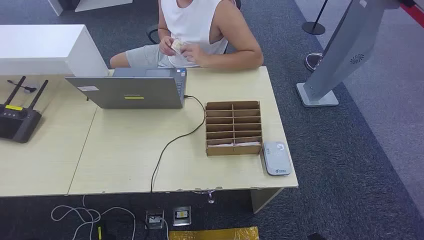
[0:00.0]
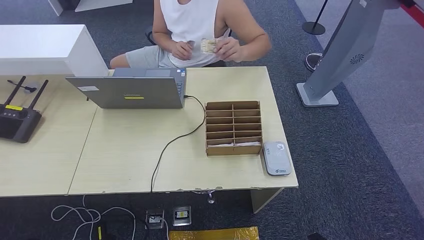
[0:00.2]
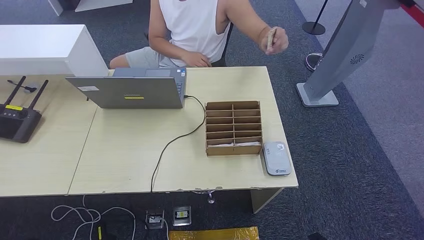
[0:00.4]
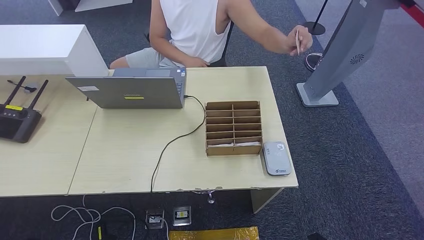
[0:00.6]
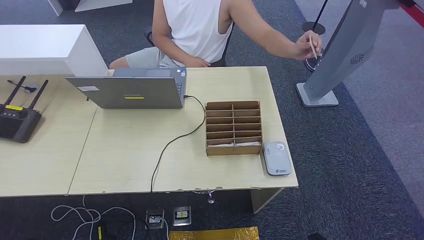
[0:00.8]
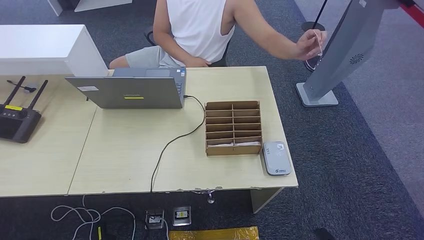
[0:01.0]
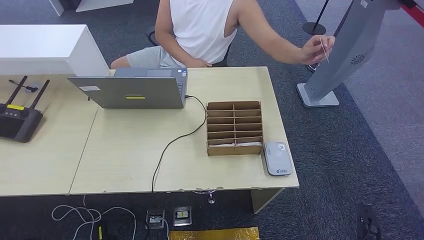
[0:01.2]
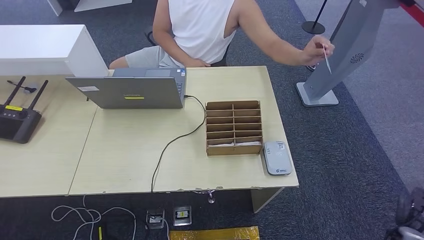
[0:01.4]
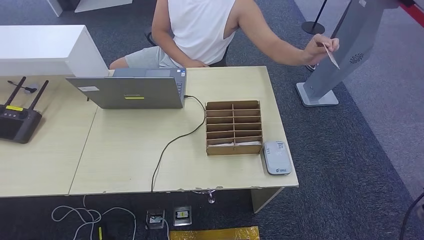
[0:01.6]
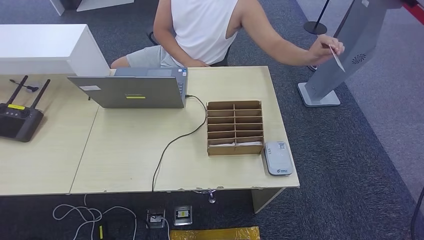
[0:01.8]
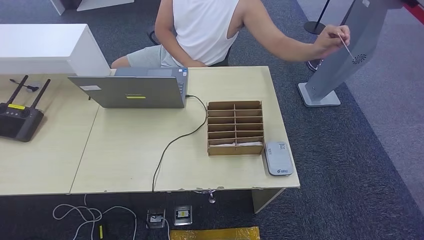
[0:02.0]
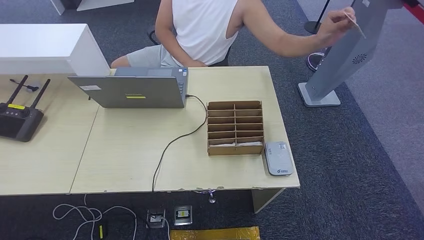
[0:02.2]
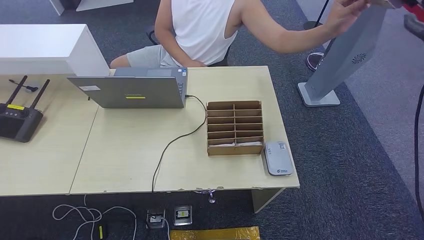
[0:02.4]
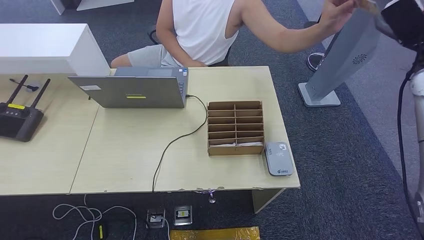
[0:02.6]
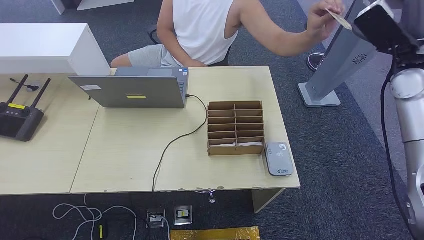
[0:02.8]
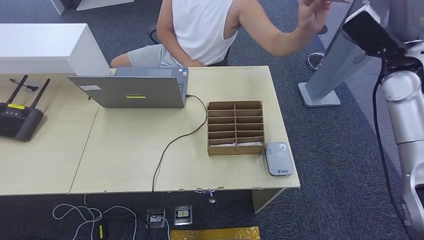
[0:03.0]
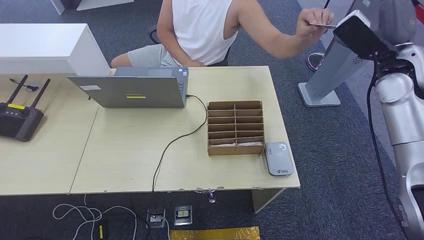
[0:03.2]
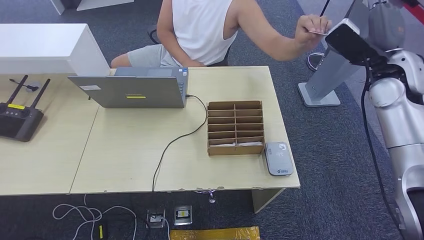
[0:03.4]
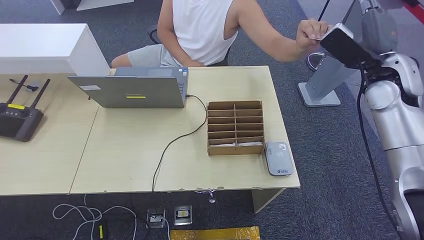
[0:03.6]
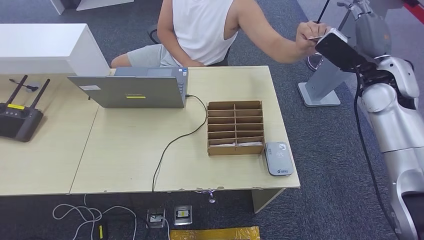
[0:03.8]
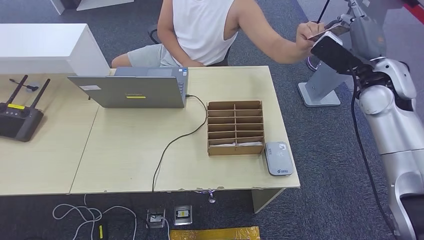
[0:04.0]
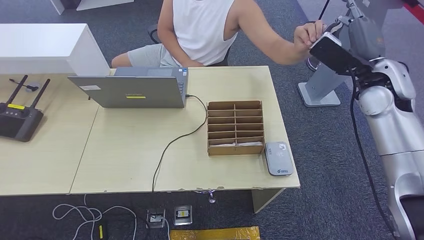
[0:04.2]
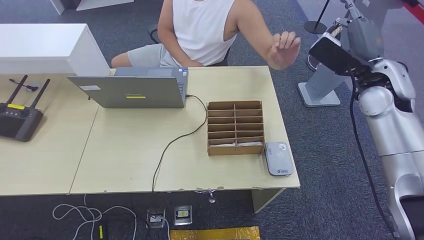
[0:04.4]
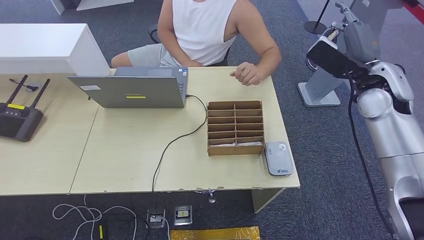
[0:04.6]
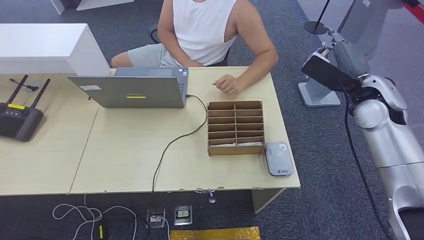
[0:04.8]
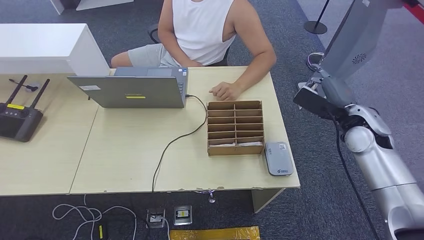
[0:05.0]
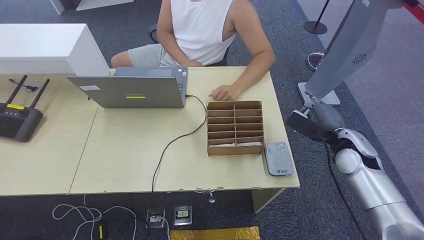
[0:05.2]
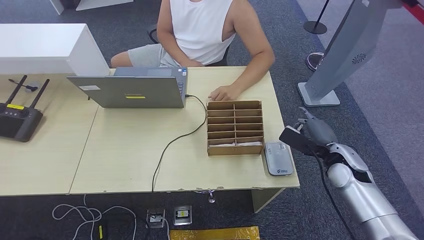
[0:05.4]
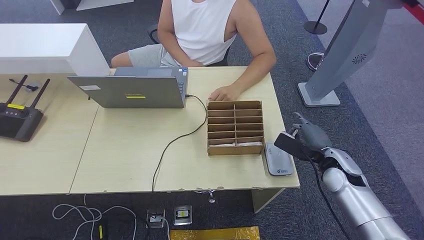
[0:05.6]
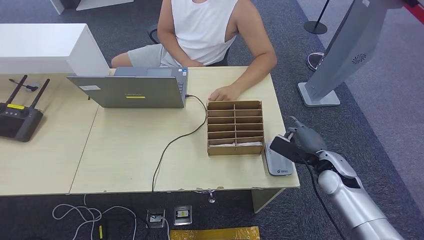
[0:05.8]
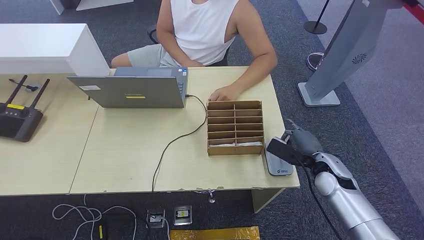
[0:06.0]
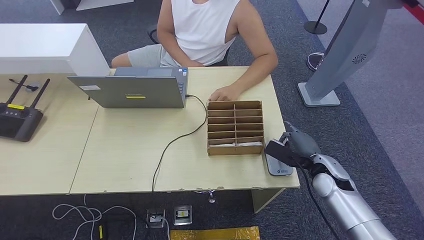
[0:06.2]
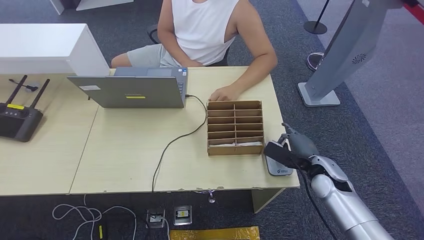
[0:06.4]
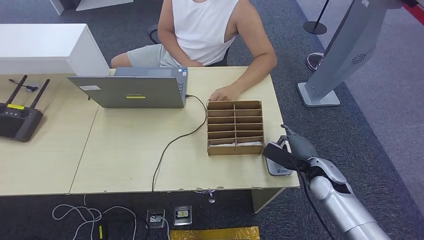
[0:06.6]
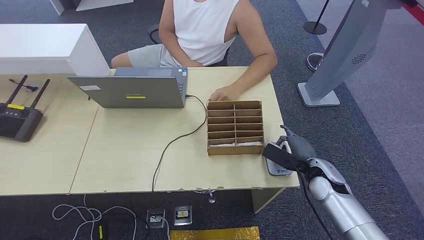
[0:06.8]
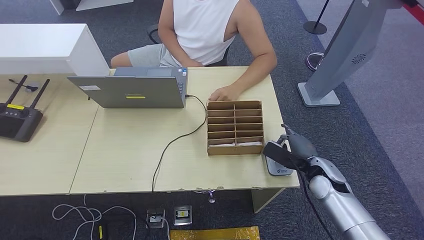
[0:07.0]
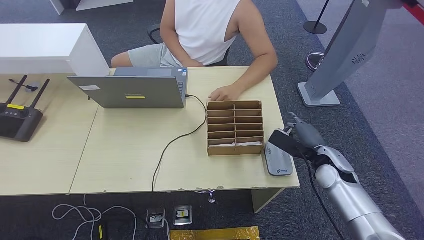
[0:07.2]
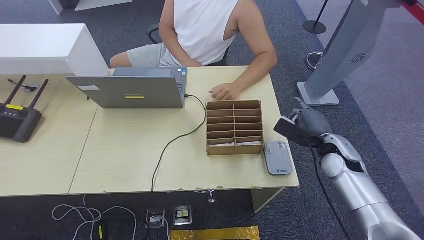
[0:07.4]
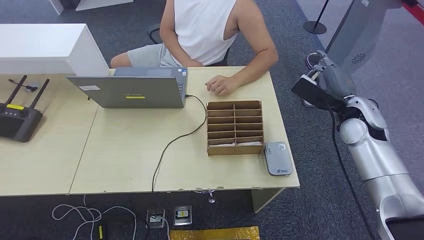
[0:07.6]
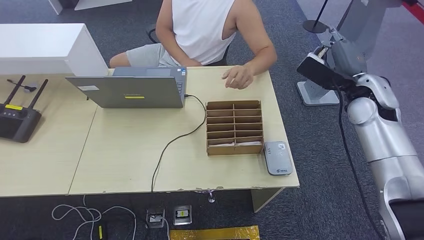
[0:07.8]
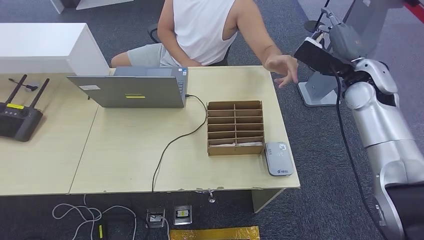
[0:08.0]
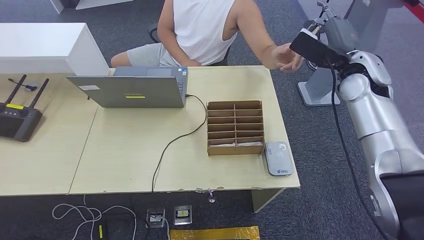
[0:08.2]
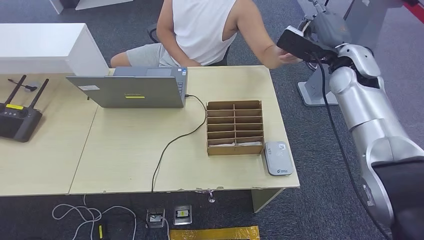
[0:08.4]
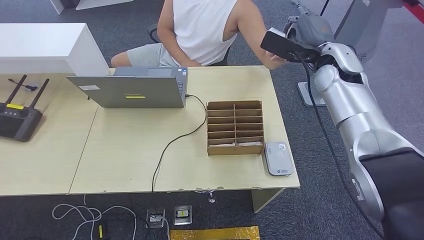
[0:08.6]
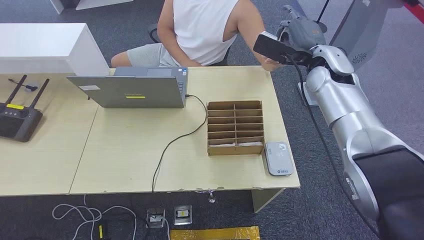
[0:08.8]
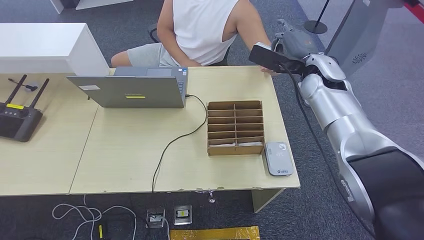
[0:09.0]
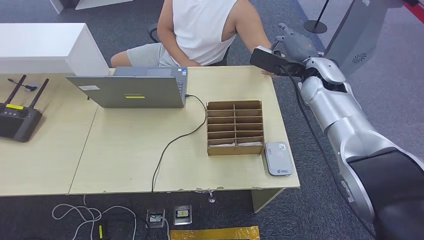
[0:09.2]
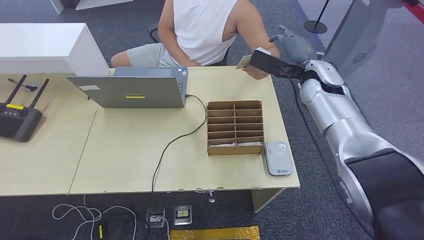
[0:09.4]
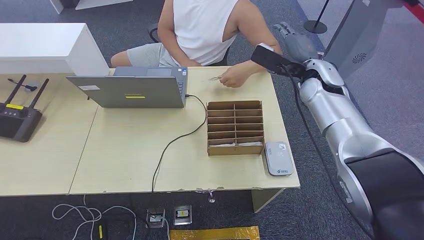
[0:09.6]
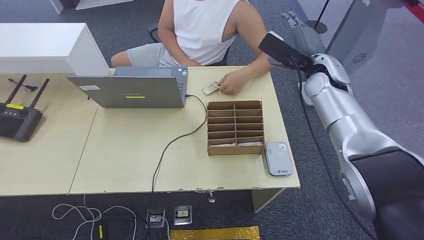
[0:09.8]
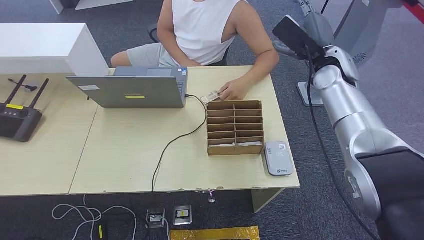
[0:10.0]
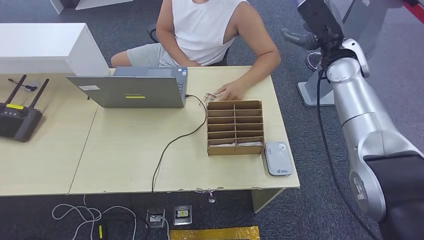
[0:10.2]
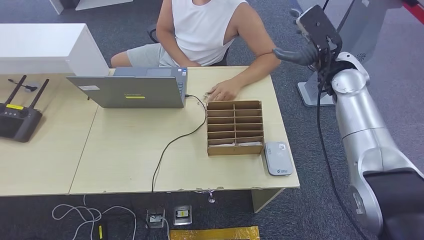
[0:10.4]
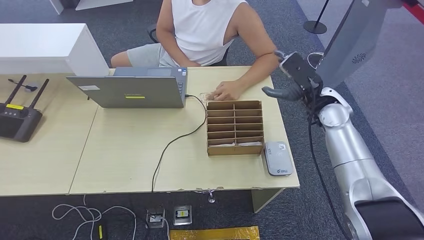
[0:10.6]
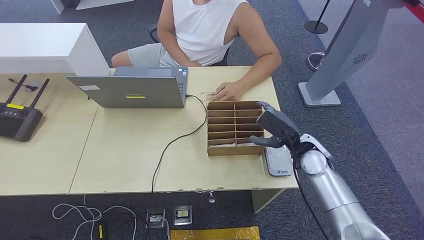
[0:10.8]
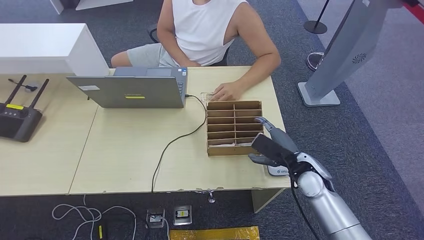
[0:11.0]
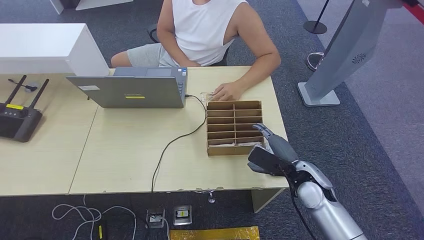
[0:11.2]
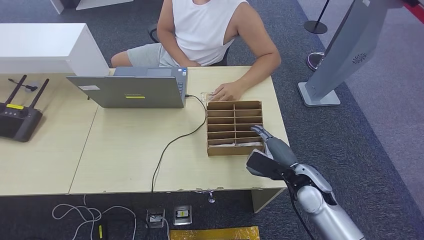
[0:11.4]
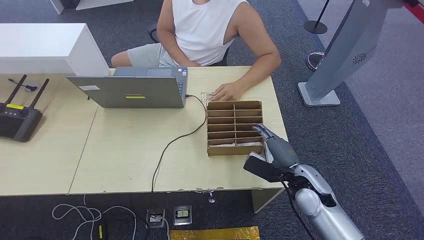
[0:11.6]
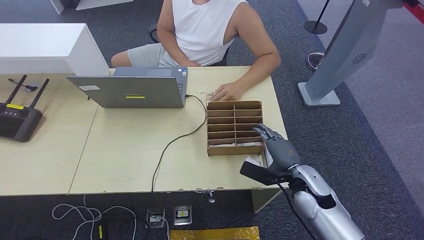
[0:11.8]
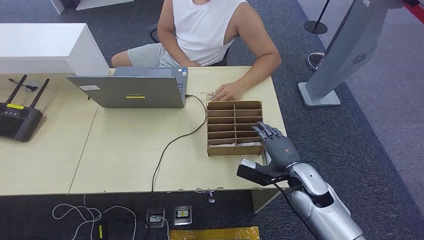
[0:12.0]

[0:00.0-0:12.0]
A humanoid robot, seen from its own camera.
Step, 0:00.0 to 0:04.6: Take the ID card from the person's hand.
Step, 0:04.8 to 0:06.8: Place the ID card on the card reader.
Step, 0:07.0 to 0:09.2: Hand the ID card to the person.
0:01.6 to 0:03.0: The right hand goes about 35 cm upward, to the left and forward.
0:03.0 to 0:04.4: The right hand shifts by about 5 cm.
0:04.4 to 0:06.0: The right hand moves downward, about 25 cm.
0:06.0 to 0:07.6: The right hand heads upward and forward, covering about 15 cm.
0:07.6 to 0:09.0: The right hand heads upward, to the left and forward, covering about 15 cm.
0:10.4 to 0:12.0: The right hand travels downward and backward by roughly 30 cm.

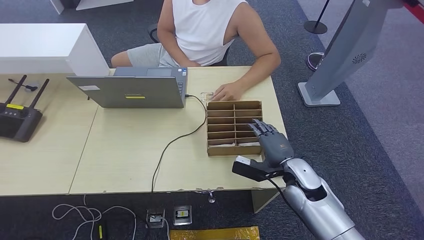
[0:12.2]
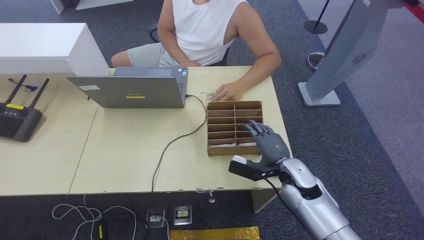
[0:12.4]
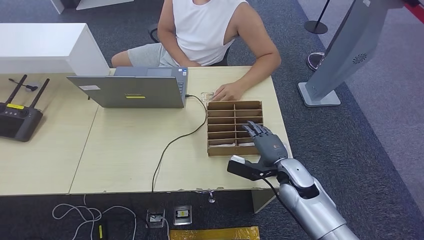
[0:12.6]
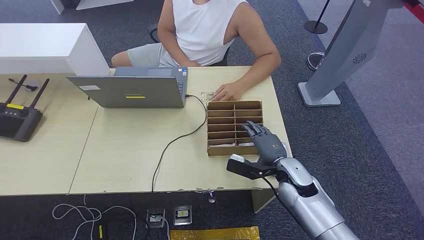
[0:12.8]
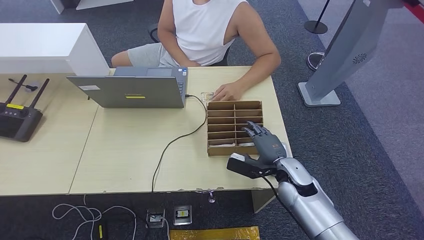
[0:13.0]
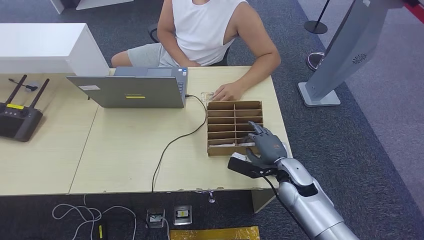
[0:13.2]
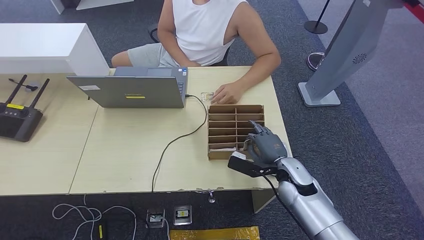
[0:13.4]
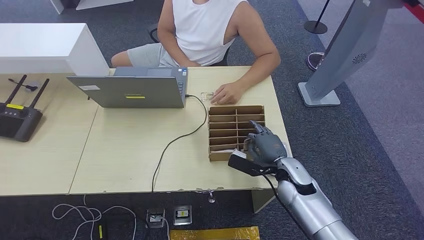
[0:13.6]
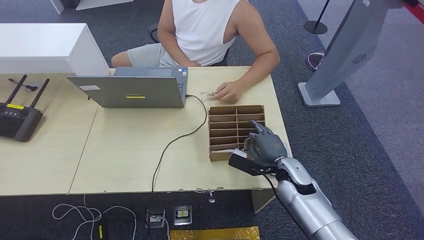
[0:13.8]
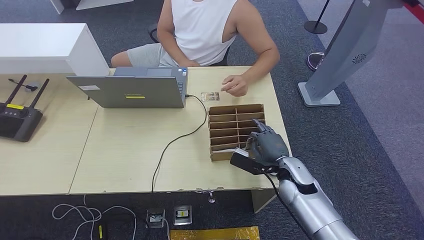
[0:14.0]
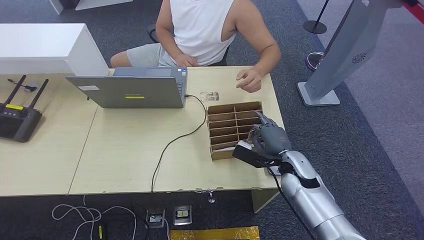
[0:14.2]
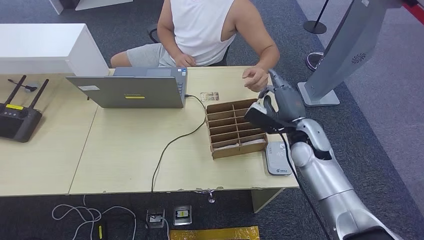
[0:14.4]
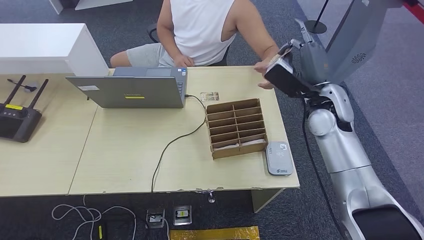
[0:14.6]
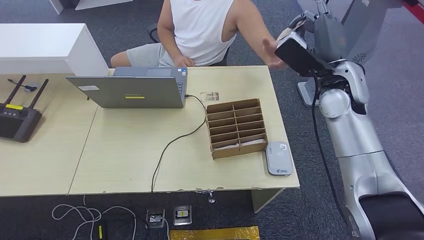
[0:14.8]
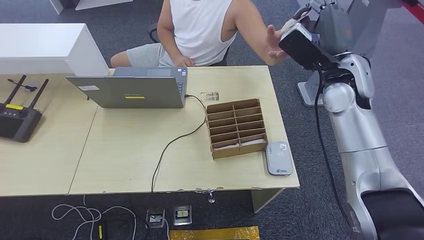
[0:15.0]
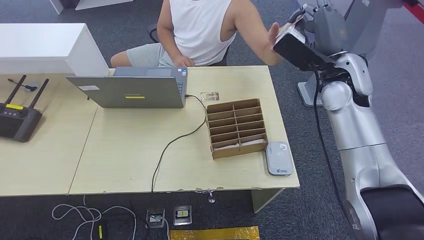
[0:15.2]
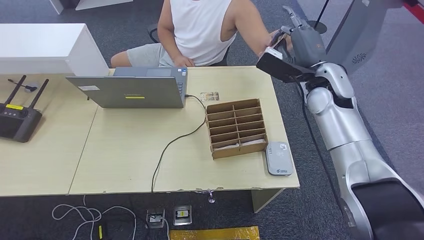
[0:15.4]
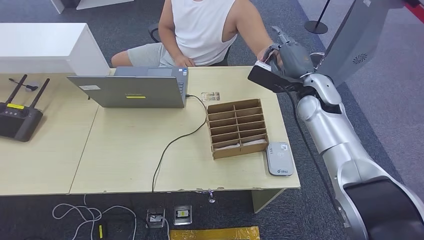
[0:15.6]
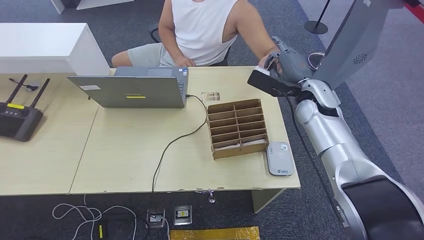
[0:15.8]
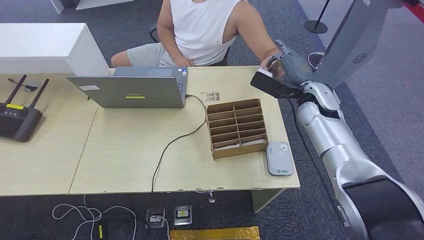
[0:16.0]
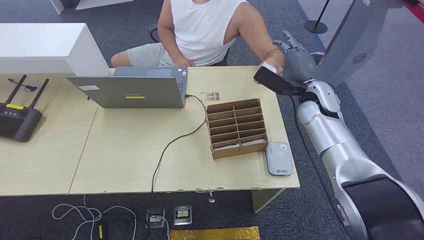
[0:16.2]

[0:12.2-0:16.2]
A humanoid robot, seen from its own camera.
Step, 0:14.2 to 0:16.2: Hand the room key to the person.
0:12.2 to 0:13.6: The hands stay close to where they were, moving slightly.
0:13.6 to 0:14.8: The right hand travels upward and forward by roughly 25 cm.
0:14.8 to 0:16.2: The right hand heads downward, covering about 5 cm.
